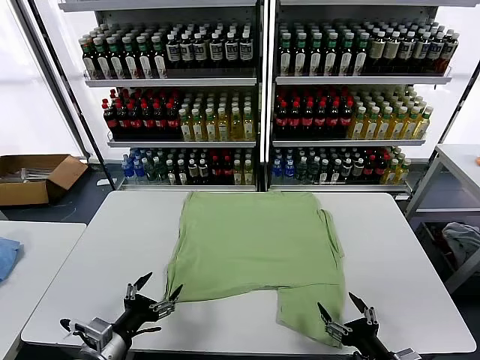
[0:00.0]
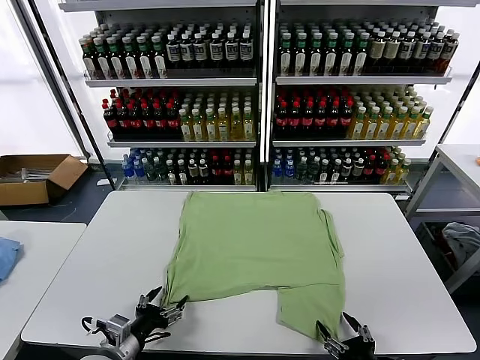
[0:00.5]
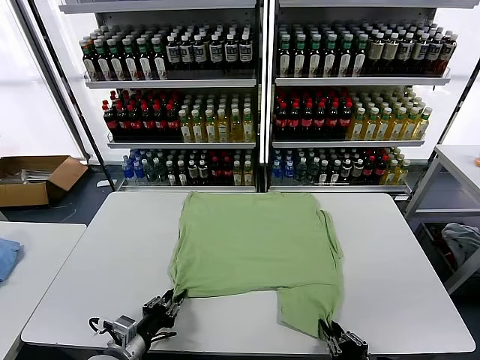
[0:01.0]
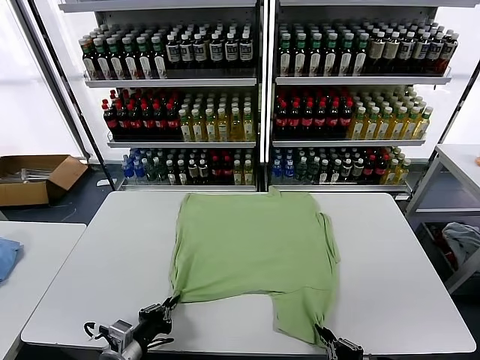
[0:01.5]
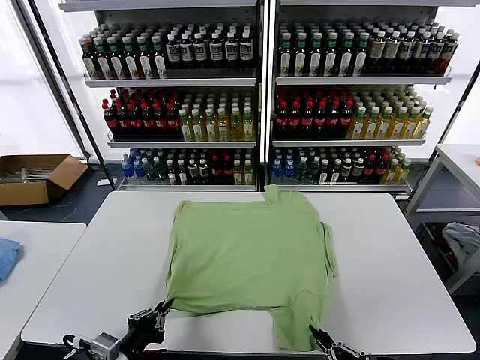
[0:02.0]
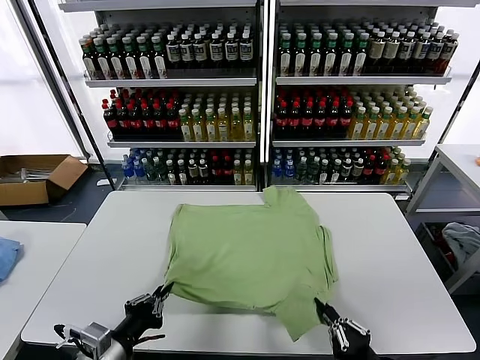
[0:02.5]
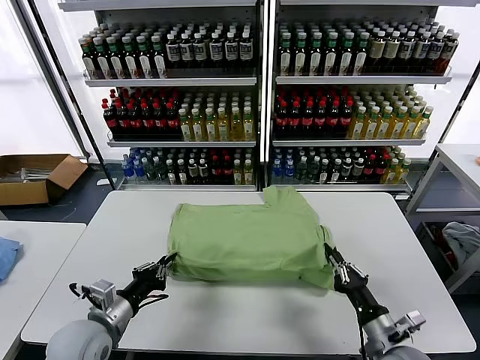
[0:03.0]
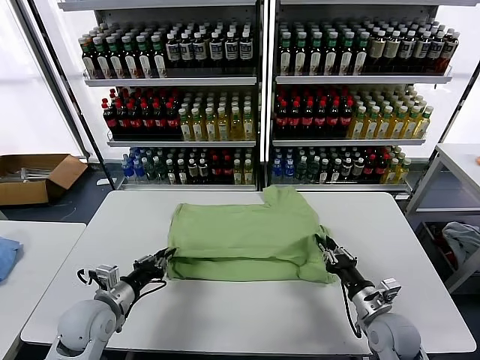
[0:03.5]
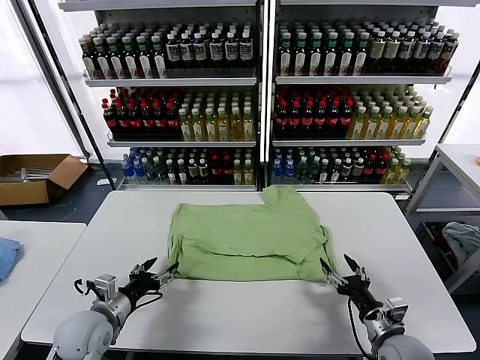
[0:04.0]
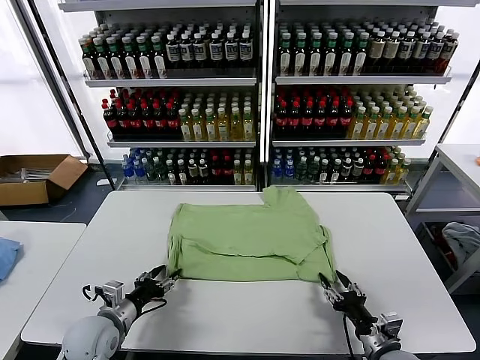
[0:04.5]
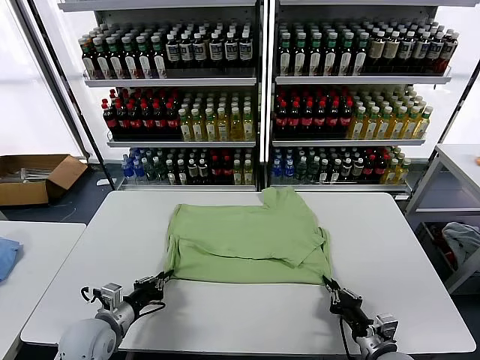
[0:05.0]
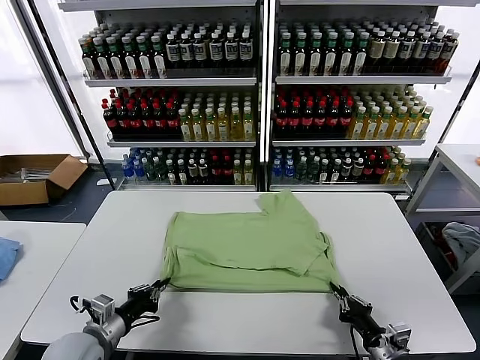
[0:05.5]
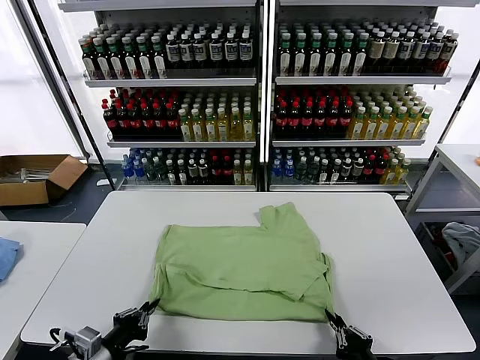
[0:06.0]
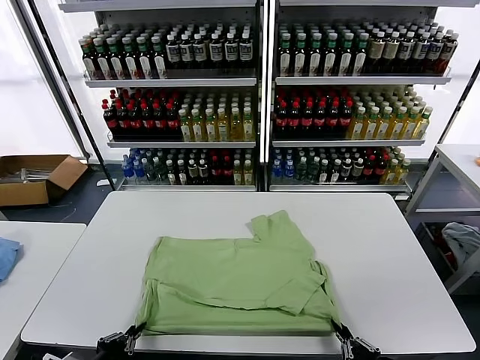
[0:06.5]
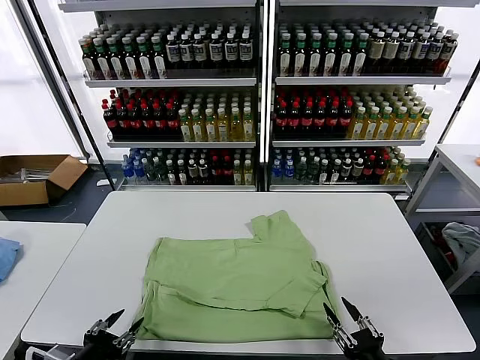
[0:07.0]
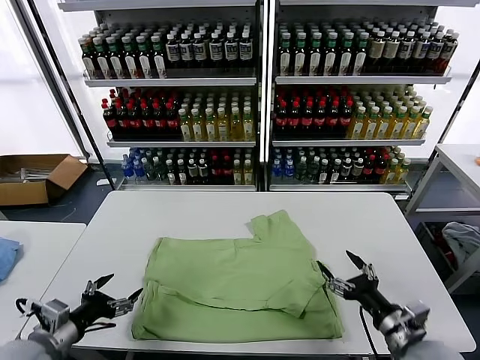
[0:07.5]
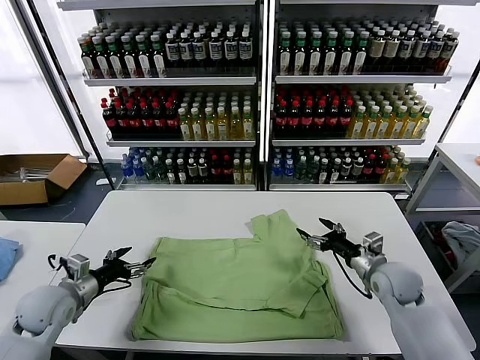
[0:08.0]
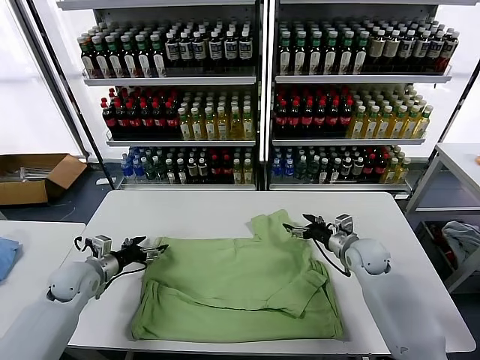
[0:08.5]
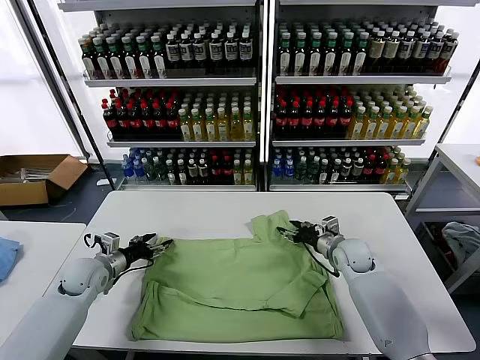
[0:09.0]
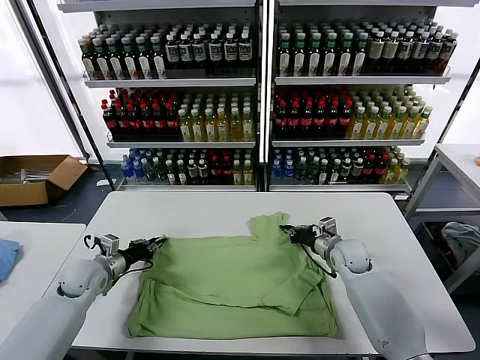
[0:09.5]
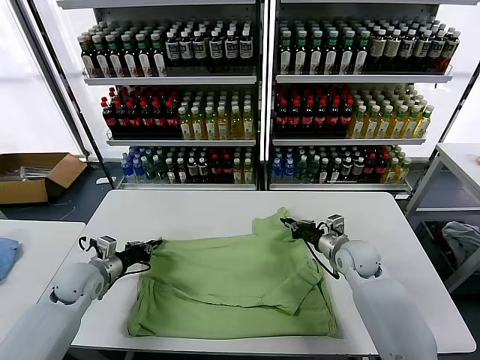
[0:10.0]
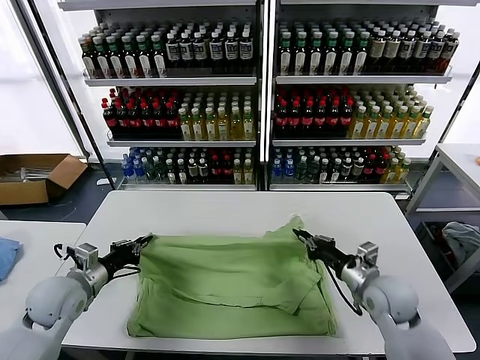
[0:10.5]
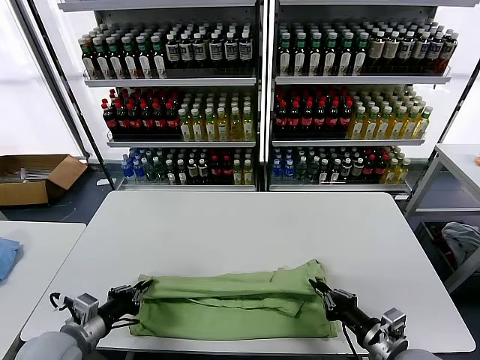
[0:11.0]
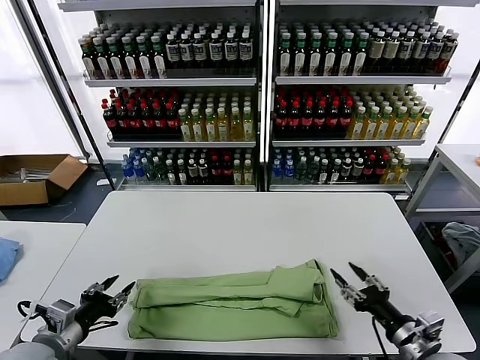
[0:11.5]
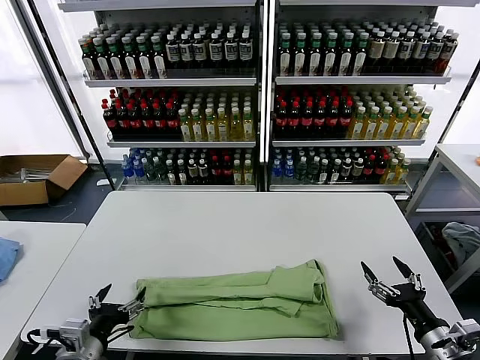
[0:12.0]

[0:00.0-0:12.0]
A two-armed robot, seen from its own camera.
Task of the whole recording: fold and organize the clothes.
Step, 0:00.0 to 0:01.0: use both grippers simultaneously to clamp the lower edge of the clothing fabric.
Step, 0:01.5 to 0:03.5: use both grippers to drag the lower edge of the fabric forward and fold it over the upper edge.
Step, 0:04.0 to 0:06.5: Drag the clothes downward with both gripper.
Step, 0:07.0 to 0:09.5: use both grippers simultaneously to clamp the upper edge of the clothing fabric.
Step, 0:10.0 to 0:11.0: use both grippers to drag the upper edge of the fabric backward and fold it over the lower edge.
0:02.0 to 0:04.0: The left gripper moves forward and to the left, some 15 cm, and opens its fingers. The right gripper goes roughly 15 cm forward, and opens its fingers.
0:04.0 to 0:06.0: Both grippers move backward, about 10 cm. The right gripper closes, while the left gripper closes.
0:06.0 to 0:08.0: The right gripper heads forward, covering approximately 30 cm, and opens, while the left gripper shifts about 15 cm forward and to the left, and opens.
0:08.0 to 0:10.0: The right gripper shifts approximately 5 cm to the left, and closes its fingers; the left gripper moves forward, approximately 10 cm, and closes.
0:10.0 to 0:12.0: The left gripper shifts about 20 cm backward, and opens its fingers, while the right gripper heads backward and to the right, covering some 30 cm, and opens up.

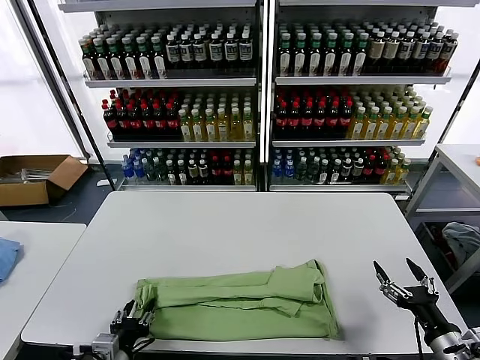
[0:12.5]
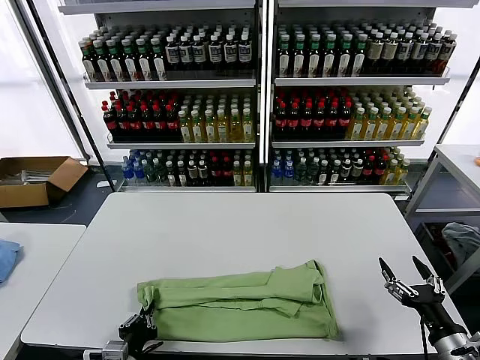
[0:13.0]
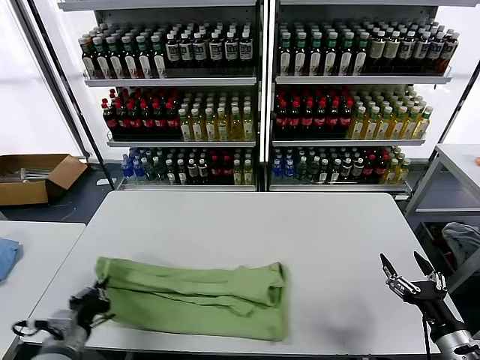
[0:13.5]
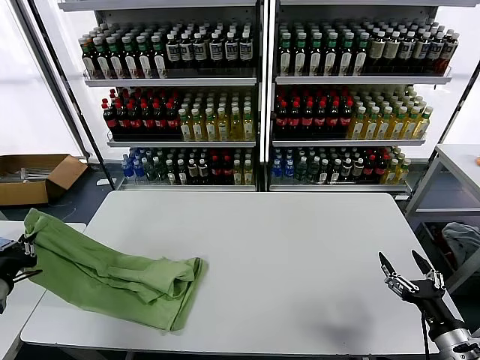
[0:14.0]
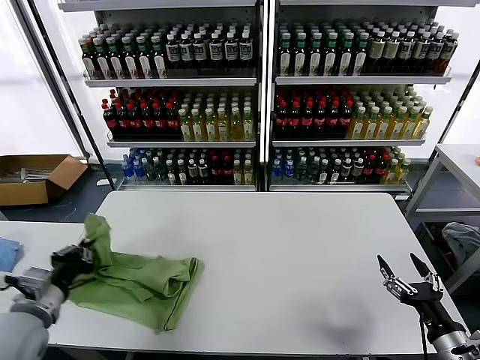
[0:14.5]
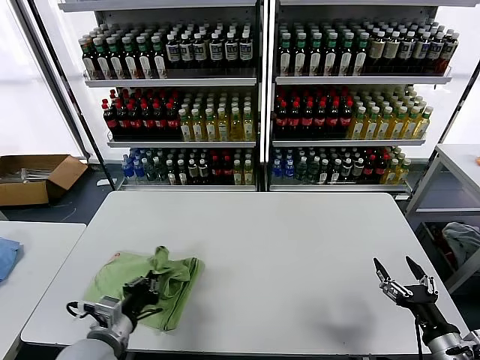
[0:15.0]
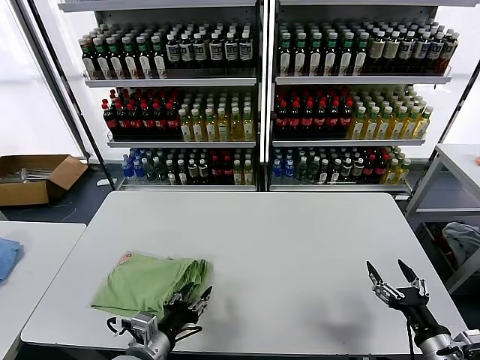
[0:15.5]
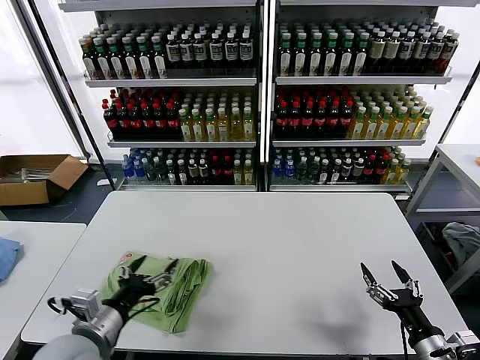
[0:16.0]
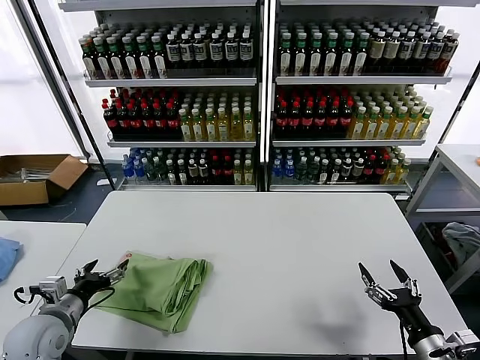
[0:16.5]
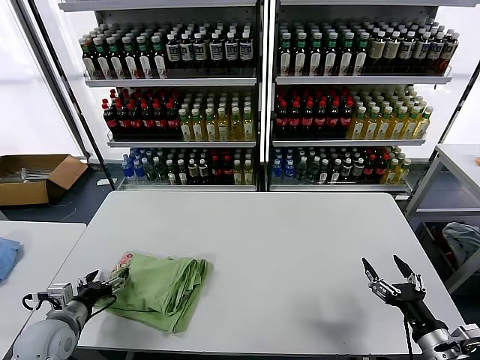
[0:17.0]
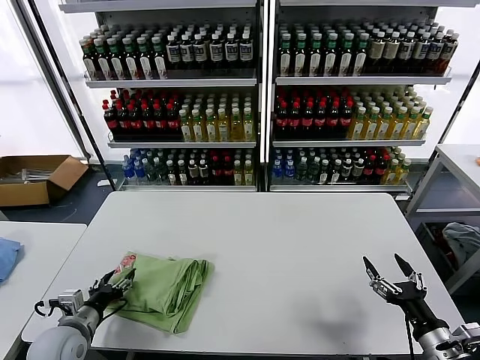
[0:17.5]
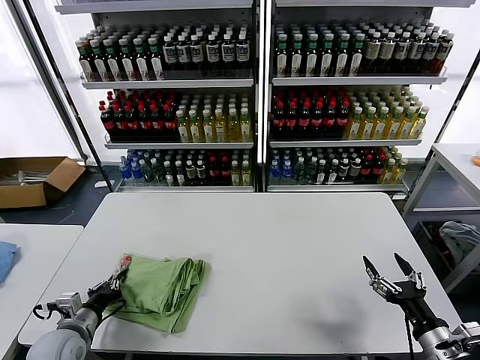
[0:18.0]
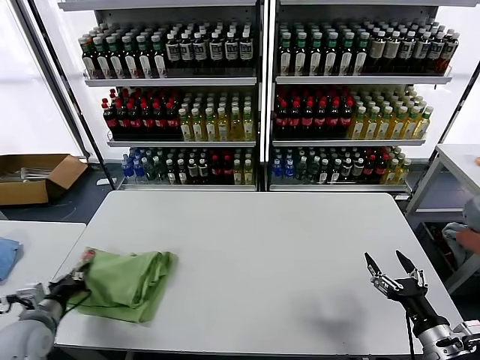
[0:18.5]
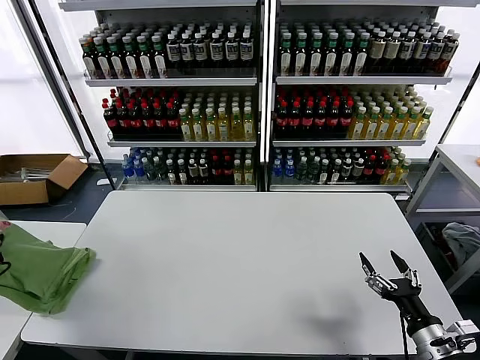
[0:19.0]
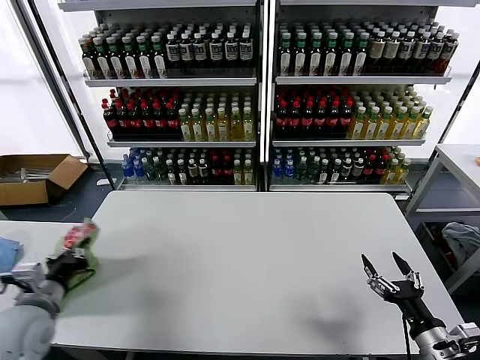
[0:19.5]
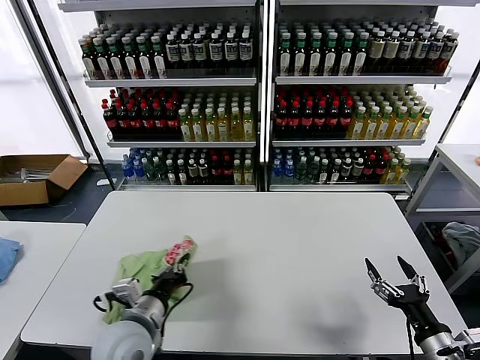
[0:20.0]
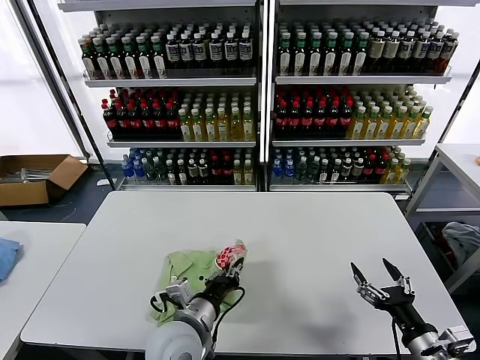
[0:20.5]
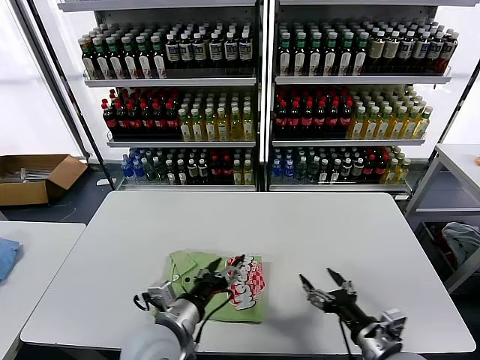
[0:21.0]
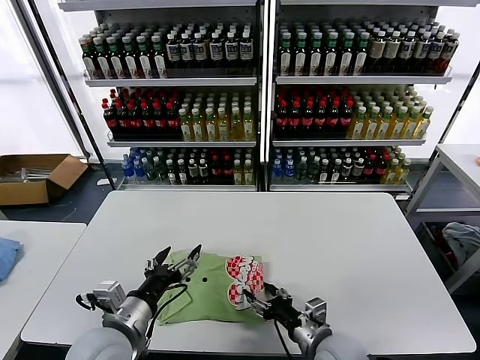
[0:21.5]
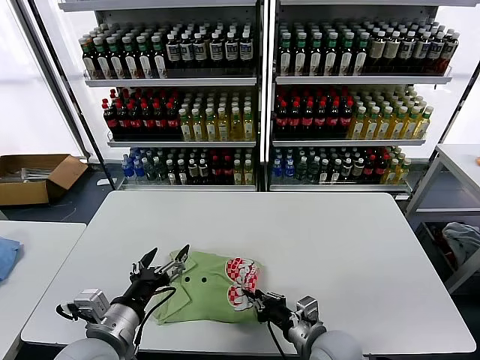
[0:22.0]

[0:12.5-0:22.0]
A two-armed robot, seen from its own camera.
Task of the whole recording: fold and organize the clothes.
Step, 0:13.5 to 0:15.5: use the left gripper to drag the left edge of the fabric to the left and folds it over the right edge.
Step, 0:16.0 to 0:20.5: Flip the folded clothes over with left gripper.
0:12.5 to 0:14.5: The left gripper shifts about 20 cm upward, to the left and forward, and closes up.
0:14.5 to 0:16.5: The left gripper goes about 5 cm downward, reaches approximately 20 cm to the right, then returns, and opens.
0:16.5 to 0:18.0: The left gripper shifts about 5 cm downward, and closes its fingers.
0:18.0 to 0:20.0: The left gripper shifts approximately 20 cm to the right and upward.
0:20.0 to 0:22.0: The left gripper moves about 10 cm to the right and comes back, and opens its fingers, while the right gripper moves to the left and forward, roughly 20 cm, and closes up.

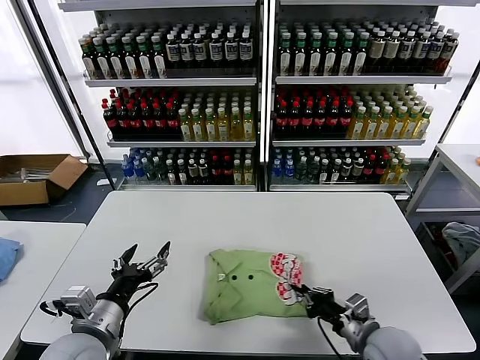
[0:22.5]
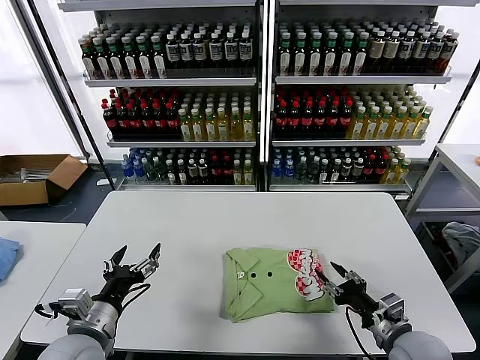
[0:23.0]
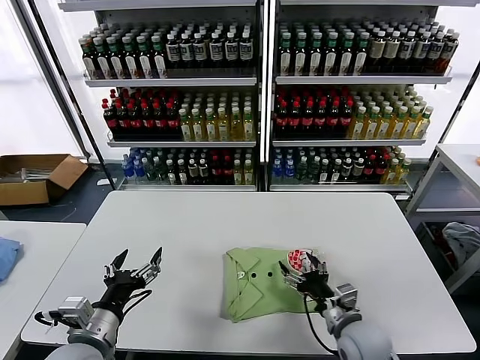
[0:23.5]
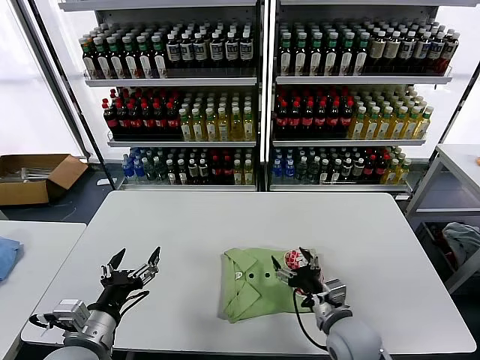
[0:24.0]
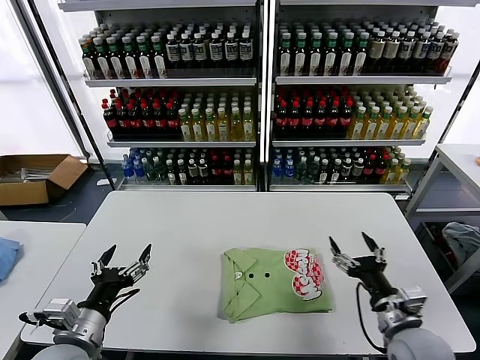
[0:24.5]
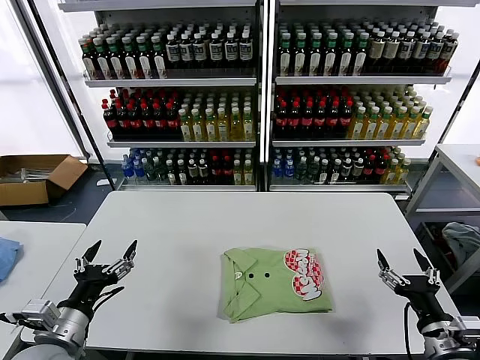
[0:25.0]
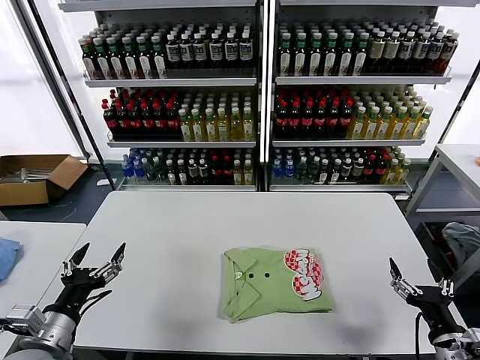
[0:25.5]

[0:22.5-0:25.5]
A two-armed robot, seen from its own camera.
Task of the whole recording: fold and organize the clothes.
0:22.5 to 0:24.0: The right gripper heads to the left, covering some 5 cm, and opens.
0:24.0 to 0:25.5: The right gripper travels to the right and backward by some 20 cm. Meanwhile the left gripper travels to the left by some 5 cm.
